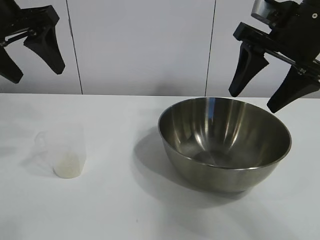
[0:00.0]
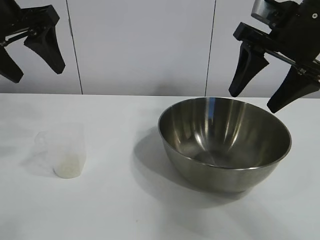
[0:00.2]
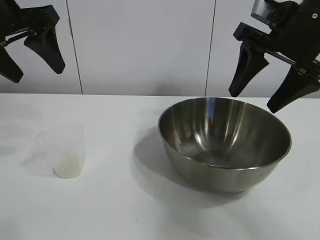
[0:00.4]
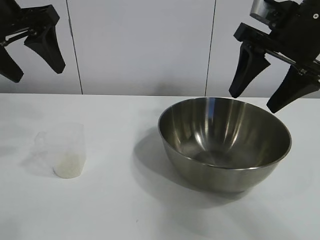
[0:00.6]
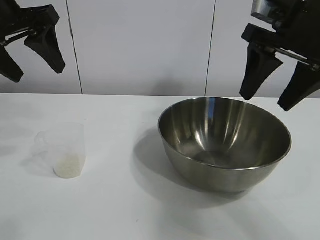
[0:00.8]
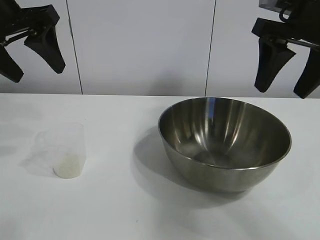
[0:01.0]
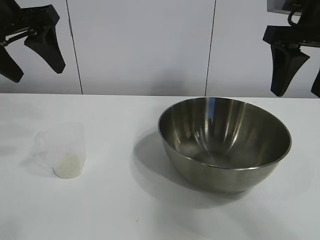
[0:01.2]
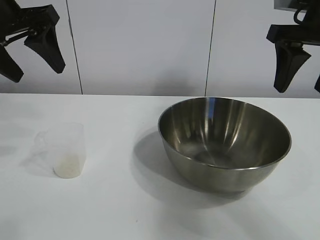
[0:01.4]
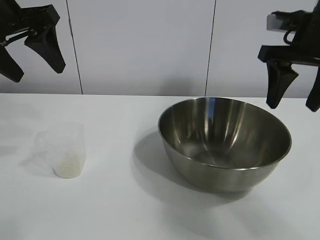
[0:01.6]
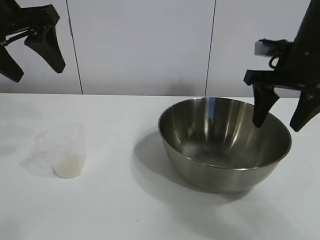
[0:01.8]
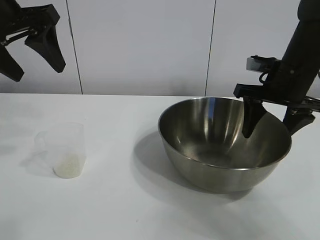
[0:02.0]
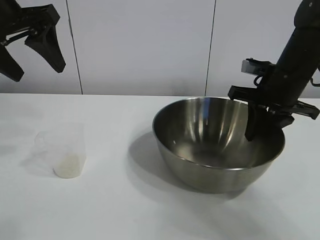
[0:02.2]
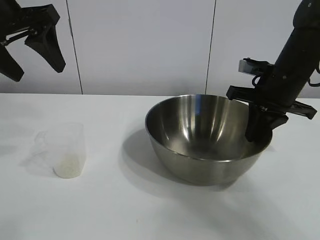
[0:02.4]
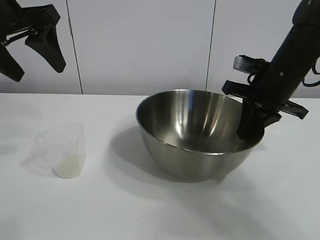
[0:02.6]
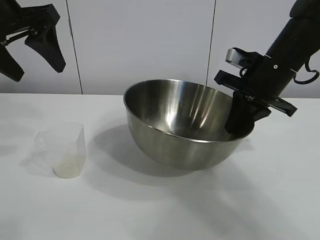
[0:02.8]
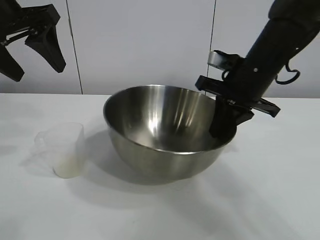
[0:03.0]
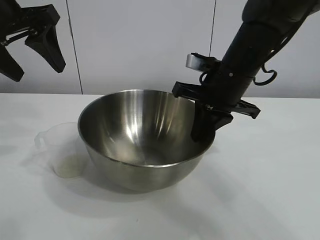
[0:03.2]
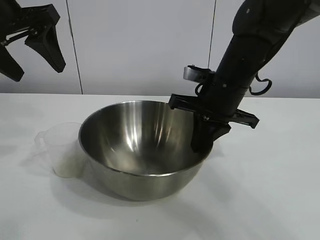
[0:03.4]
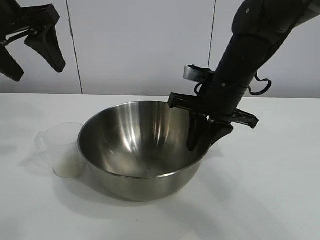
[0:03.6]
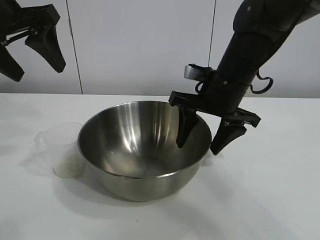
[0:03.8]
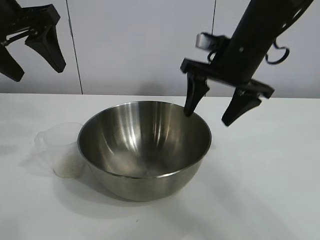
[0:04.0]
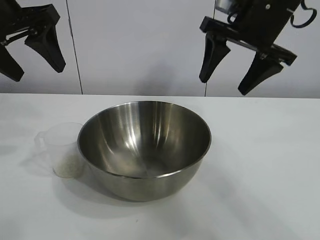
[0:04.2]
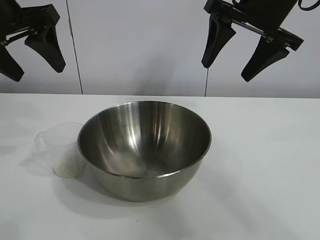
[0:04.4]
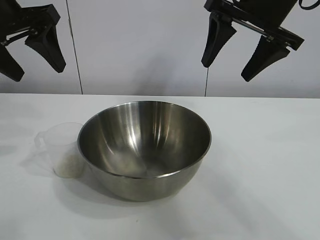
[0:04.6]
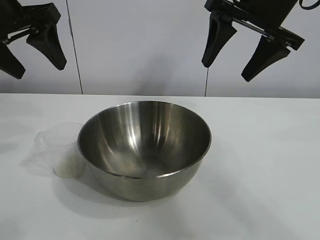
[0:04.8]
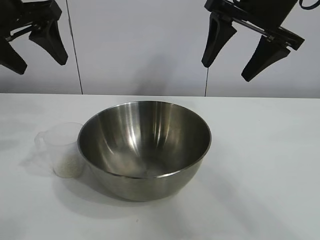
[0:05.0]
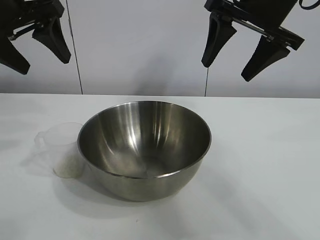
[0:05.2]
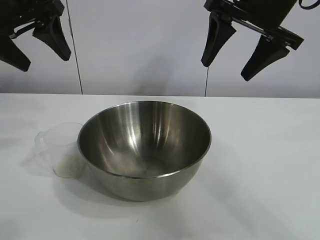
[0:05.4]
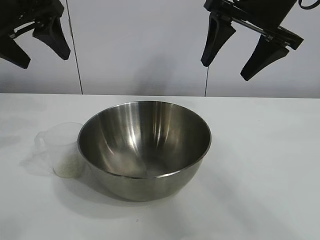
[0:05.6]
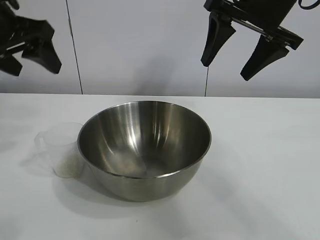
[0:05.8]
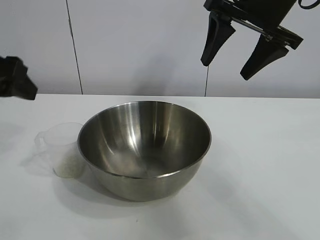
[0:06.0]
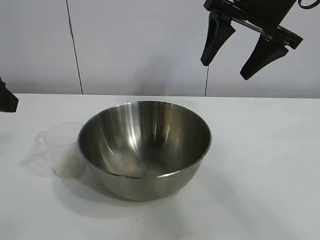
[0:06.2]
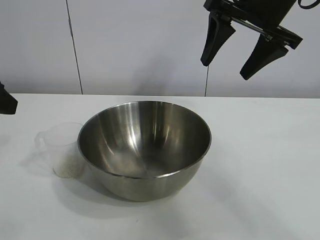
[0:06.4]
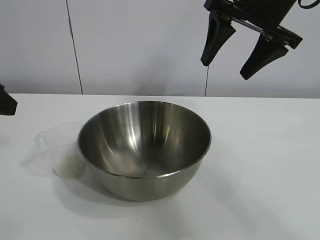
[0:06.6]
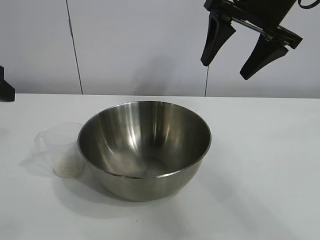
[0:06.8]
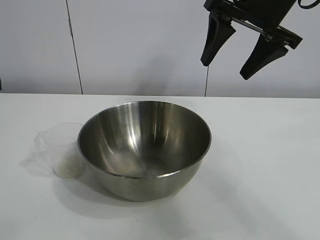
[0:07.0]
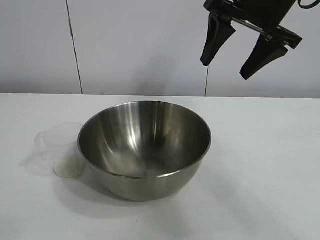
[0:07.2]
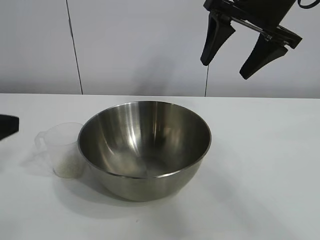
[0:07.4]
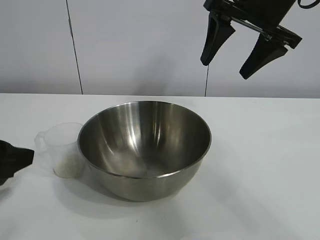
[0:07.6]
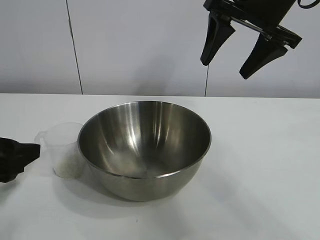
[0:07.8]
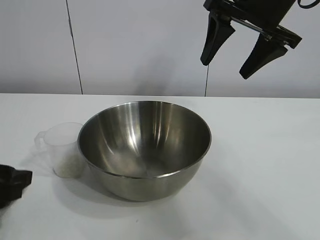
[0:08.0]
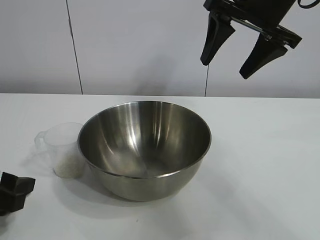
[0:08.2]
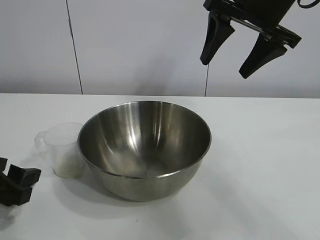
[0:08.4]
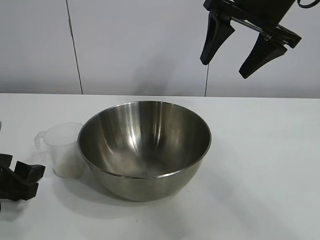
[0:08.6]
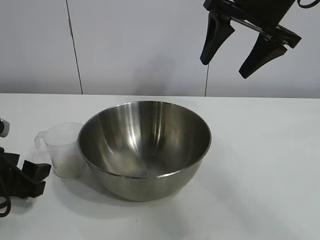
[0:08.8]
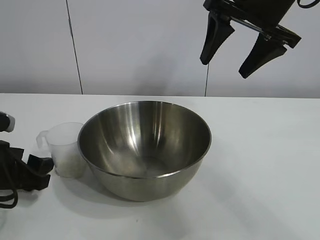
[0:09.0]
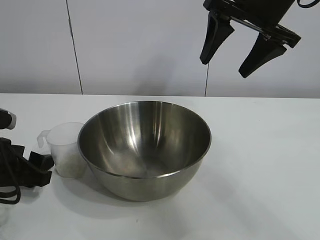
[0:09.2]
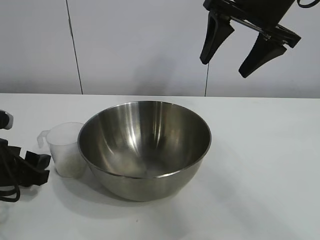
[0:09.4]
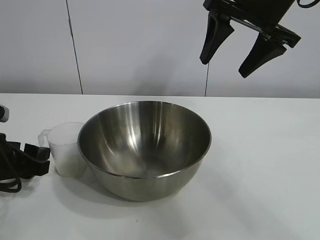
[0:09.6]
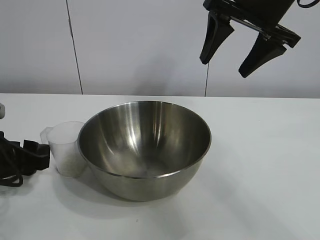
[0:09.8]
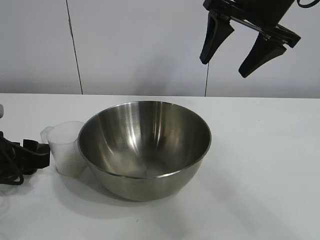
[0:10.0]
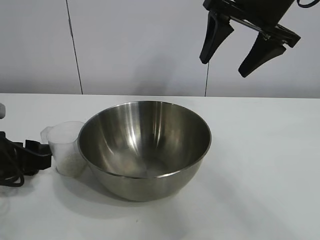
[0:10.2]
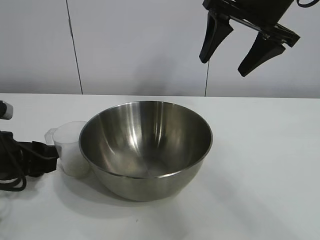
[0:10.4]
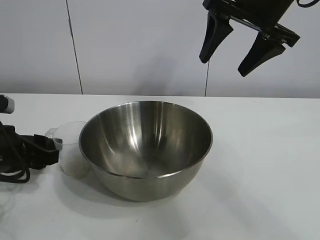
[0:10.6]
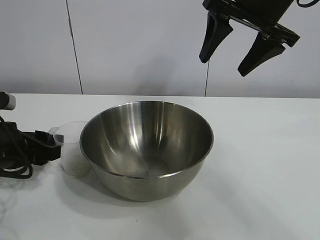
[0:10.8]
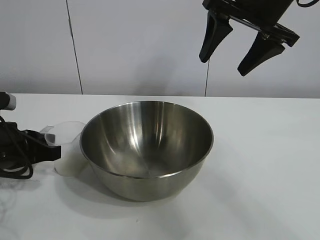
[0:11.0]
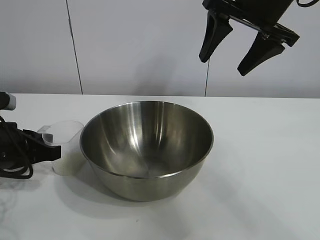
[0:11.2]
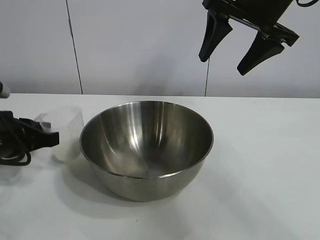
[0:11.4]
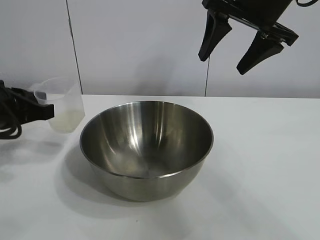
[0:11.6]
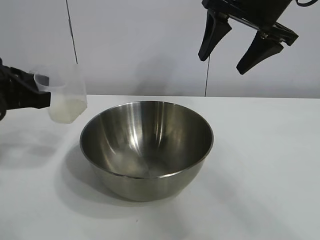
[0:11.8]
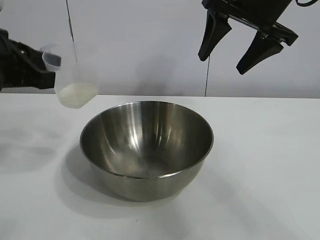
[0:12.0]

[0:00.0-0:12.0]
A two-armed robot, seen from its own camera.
Task of the whole recording: the right gripper grasp the rice container and place it in the center of the table, the left gripper grasp the rice scoop and pour the rice into the rice container.
Step, 0:00.6 to 0:03.6: Move the bowl in the center of view with right gripper.
Step, 0:03.8 to 0:11.2: Grasp the cup with rice in it with left gripper.

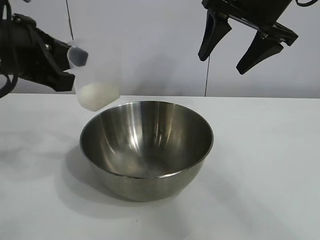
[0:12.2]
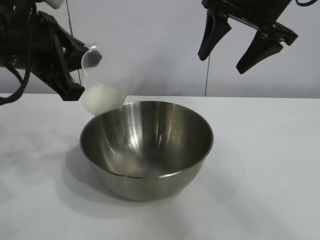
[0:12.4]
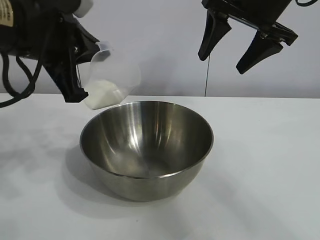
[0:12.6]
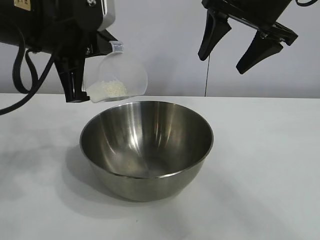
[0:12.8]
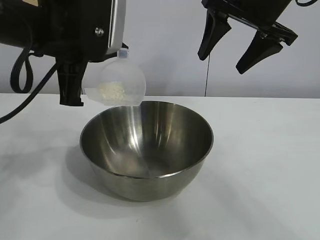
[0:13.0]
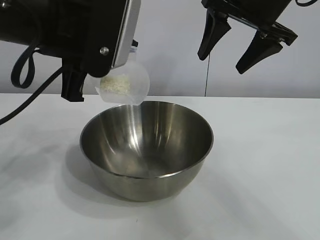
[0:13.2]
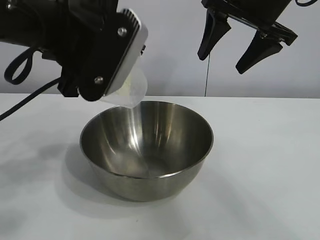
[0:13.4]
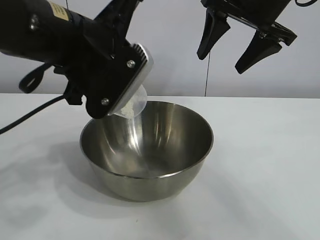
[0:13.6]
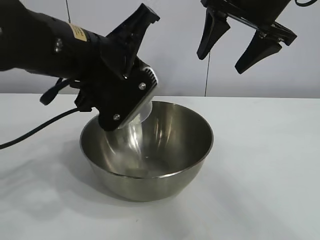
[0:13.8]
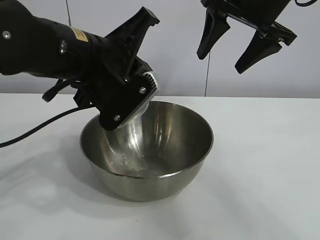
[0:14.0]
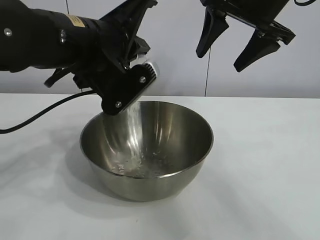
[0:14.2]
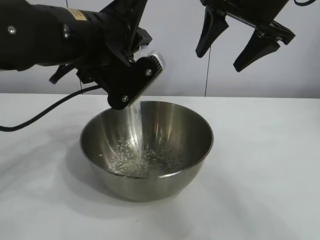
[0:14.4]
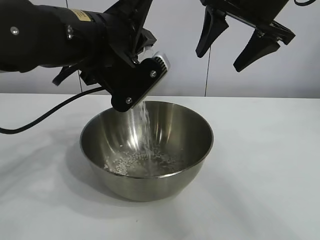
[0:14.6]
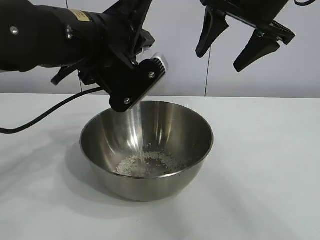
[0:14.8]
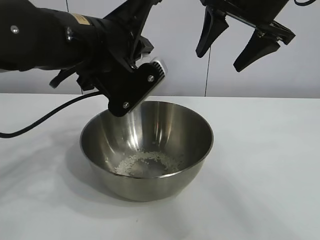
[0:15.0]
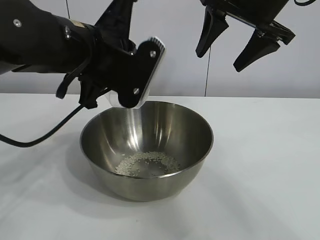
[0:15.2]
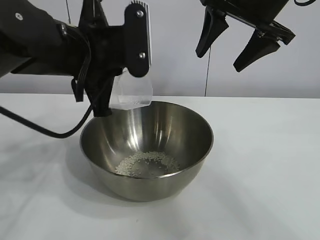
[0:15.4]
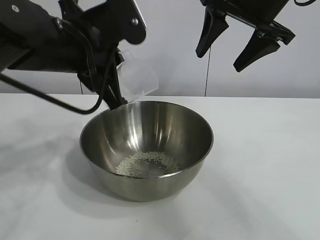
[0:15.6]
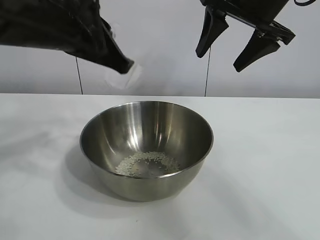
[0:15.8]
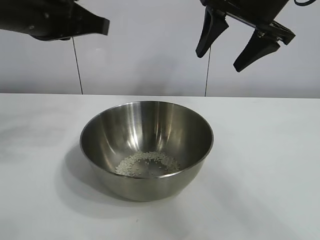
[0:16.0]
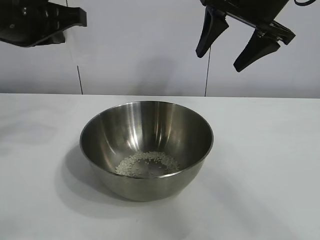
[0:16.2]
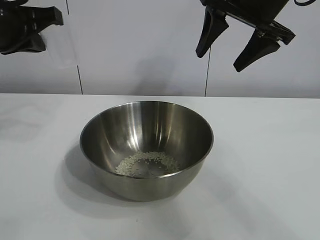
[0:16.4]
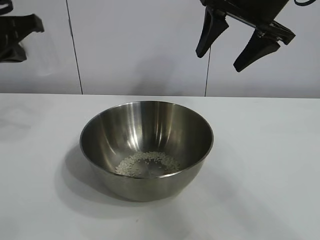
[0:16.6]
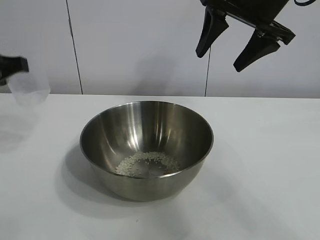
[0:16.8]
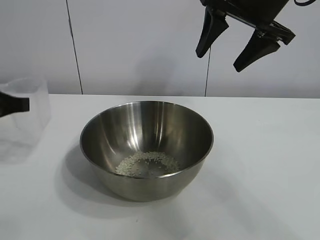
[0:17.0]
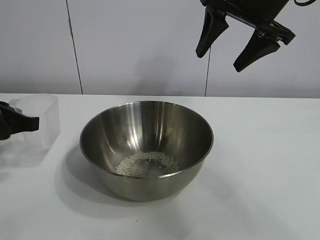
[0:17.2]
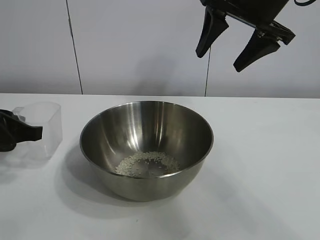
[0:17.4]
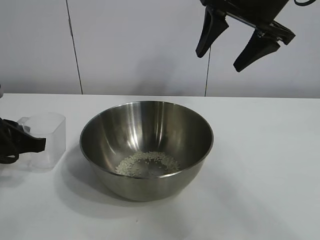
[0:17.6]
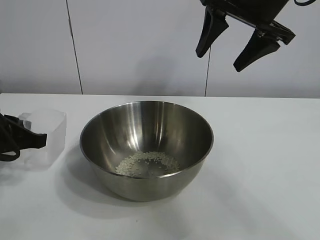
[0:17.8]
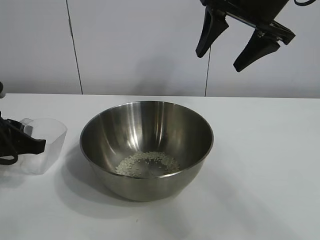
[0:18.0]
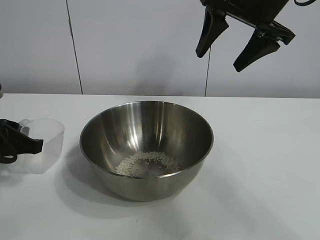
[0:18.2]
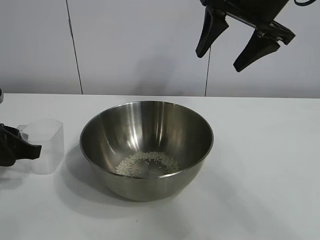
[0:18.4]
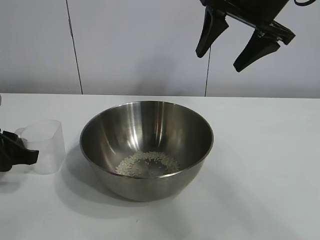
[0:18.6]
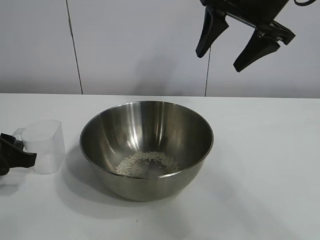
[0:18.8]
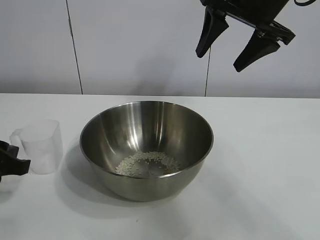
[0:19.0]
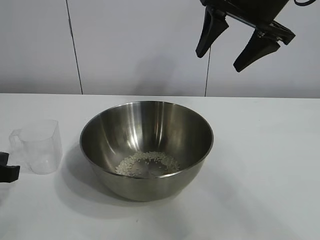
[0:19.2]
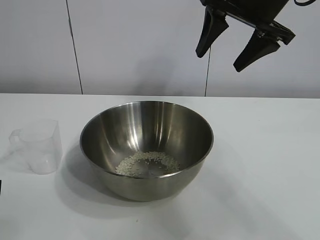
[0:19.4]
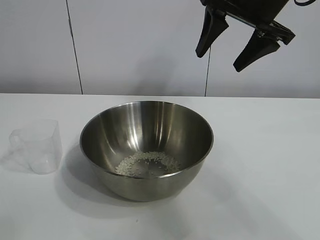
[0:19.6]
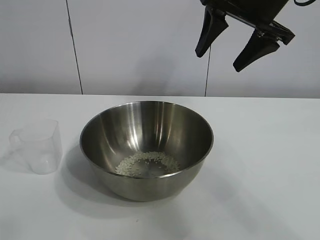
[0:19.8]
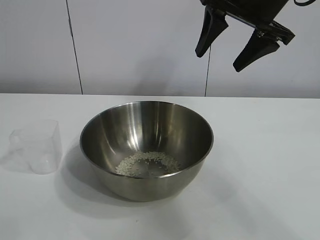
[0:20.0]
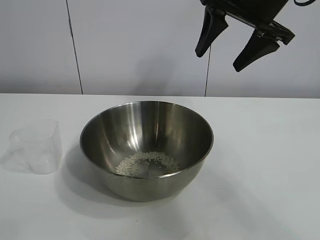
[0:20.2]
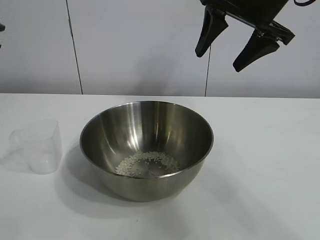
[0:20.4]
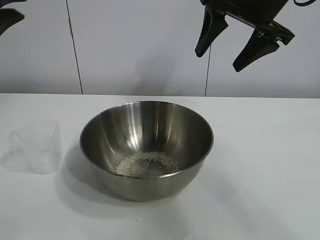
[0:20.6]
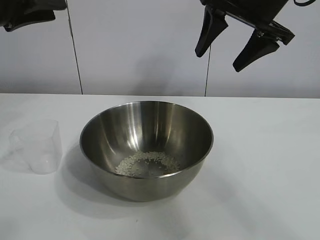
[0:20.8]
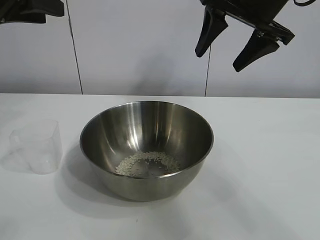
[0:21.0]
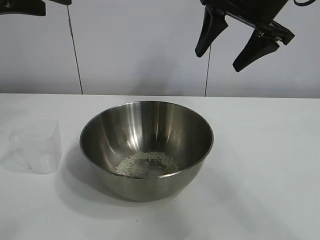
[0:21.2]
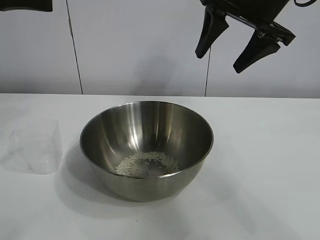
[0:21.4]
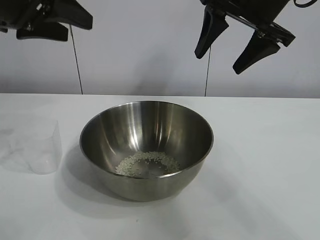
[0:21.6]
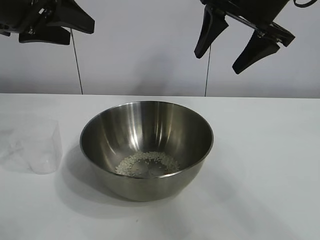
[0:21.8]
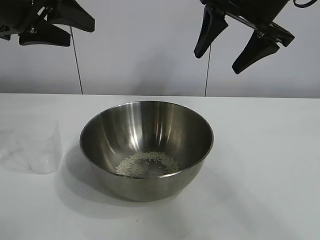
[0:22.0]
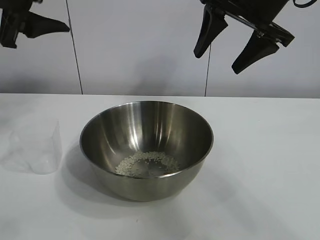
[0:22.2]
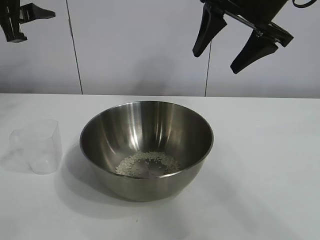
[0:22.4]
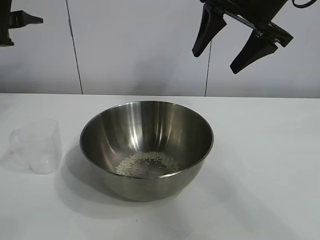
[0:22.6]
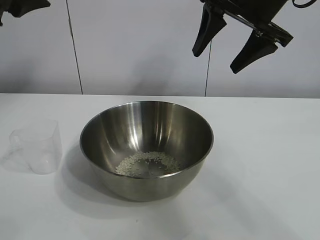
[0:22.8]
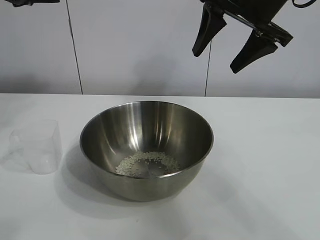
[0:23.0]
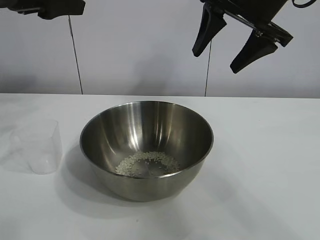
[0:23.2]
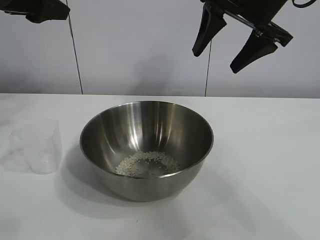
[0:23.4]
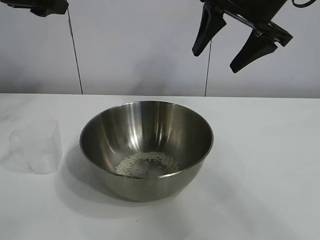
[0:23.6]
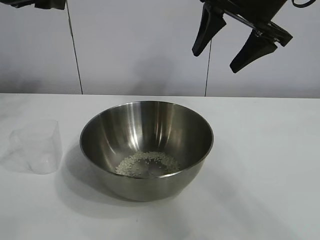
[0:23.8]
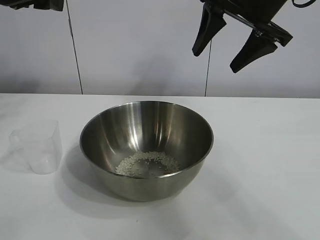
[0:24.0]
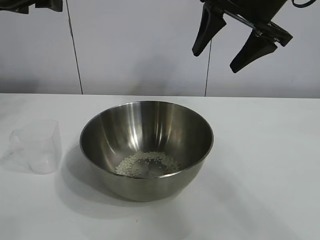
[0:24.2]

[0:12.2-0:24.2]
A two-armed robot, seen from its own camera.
Task of the whole recording: the right gripper grasp the rice container and place it in the center of the table, the left gripper grasp the rice scoop and pour the rice into the rice container.
Step, 0:12.2 to 0:15.4: Pour the rice from the cup into the bowl with the left gripper.
Step, 0:15.6 to 0:18.8: Place the cup on the table with the left gripper.
